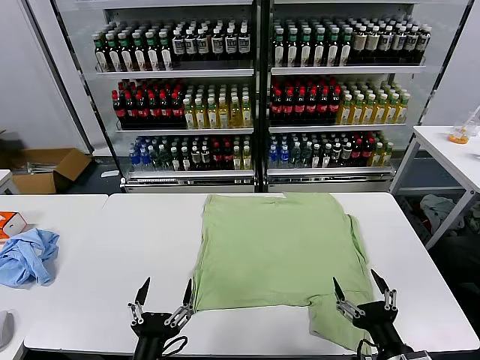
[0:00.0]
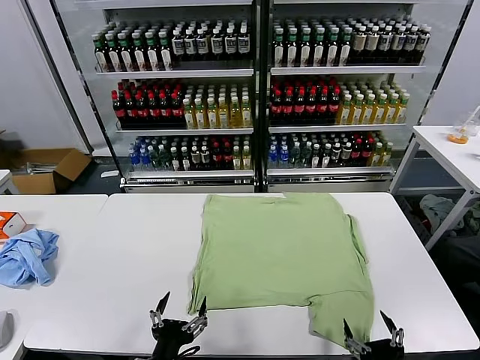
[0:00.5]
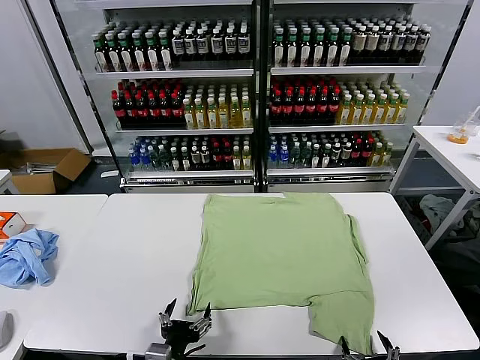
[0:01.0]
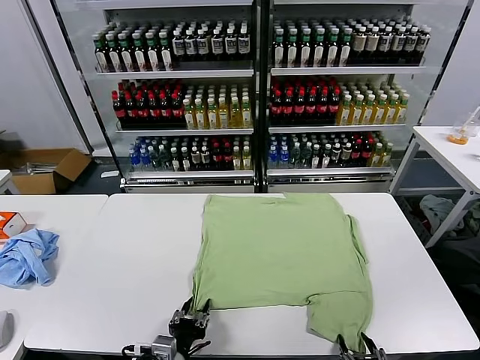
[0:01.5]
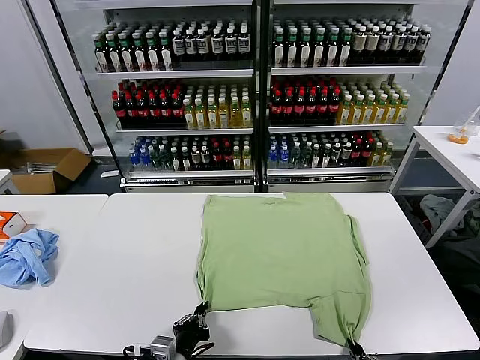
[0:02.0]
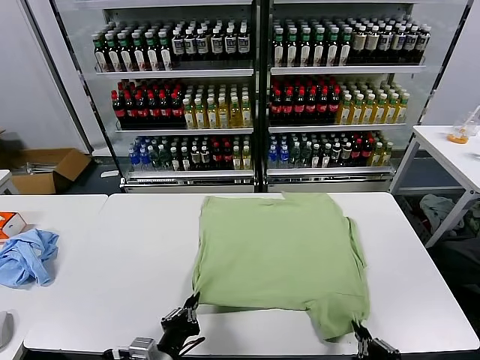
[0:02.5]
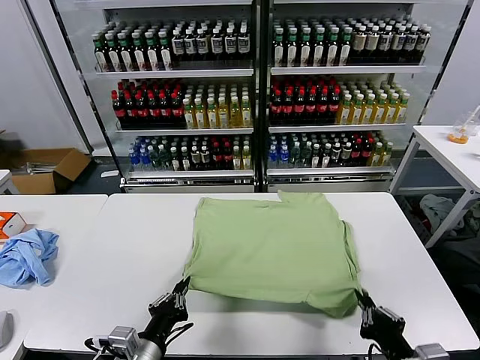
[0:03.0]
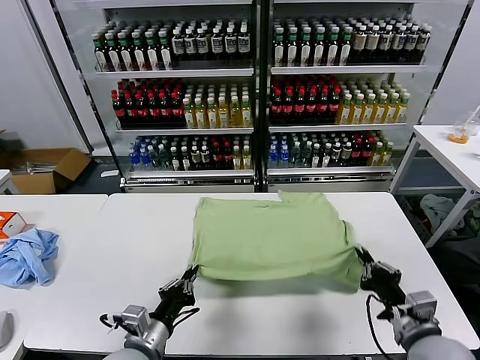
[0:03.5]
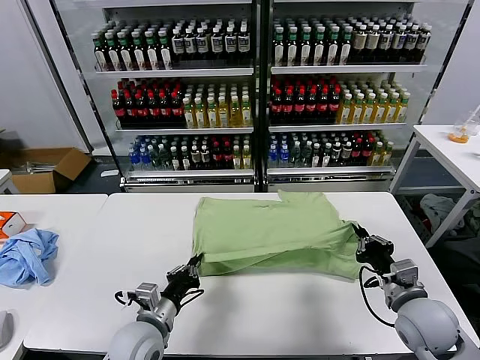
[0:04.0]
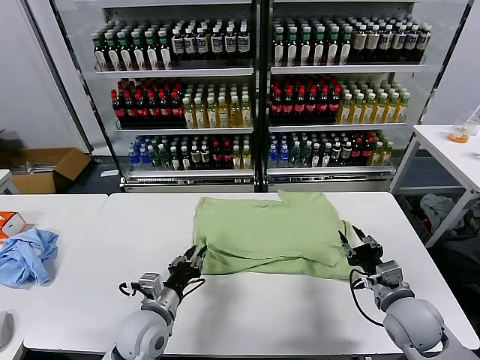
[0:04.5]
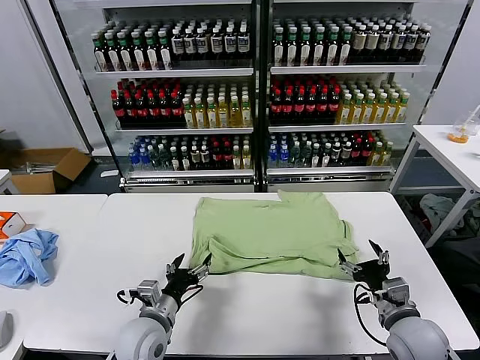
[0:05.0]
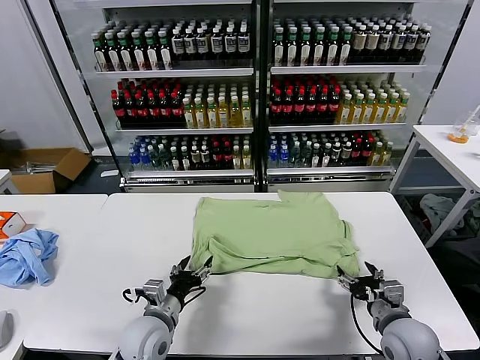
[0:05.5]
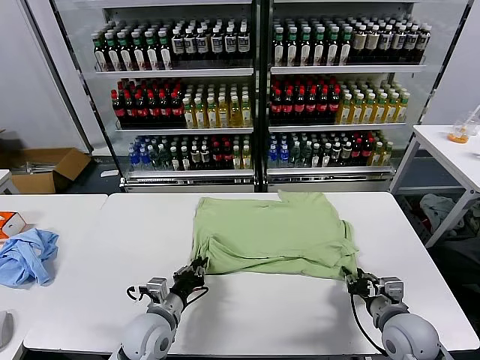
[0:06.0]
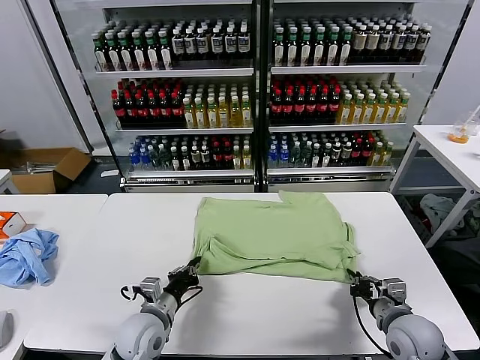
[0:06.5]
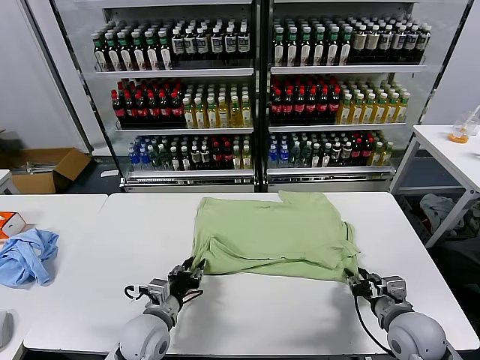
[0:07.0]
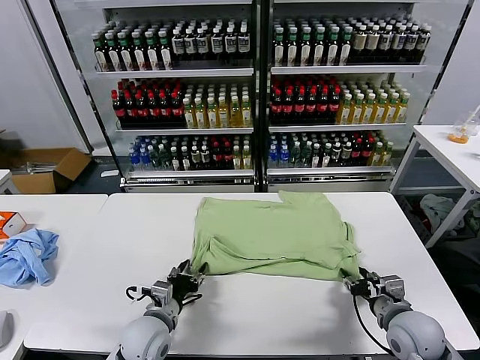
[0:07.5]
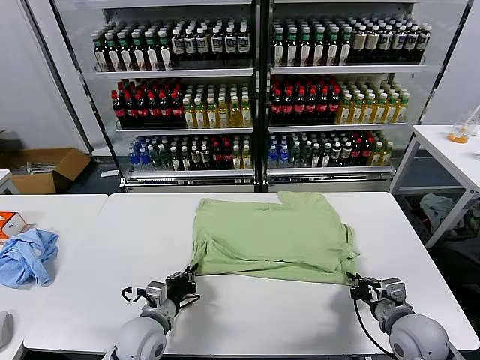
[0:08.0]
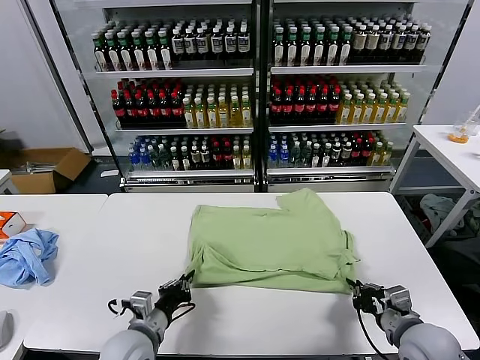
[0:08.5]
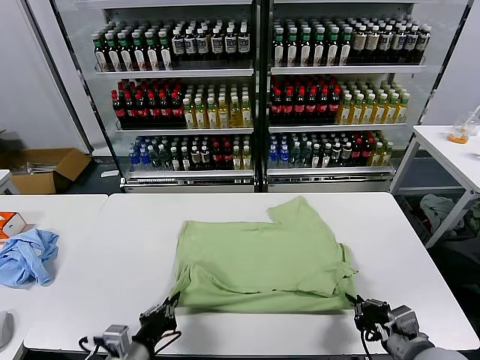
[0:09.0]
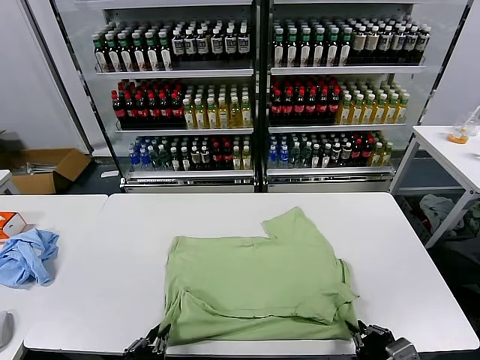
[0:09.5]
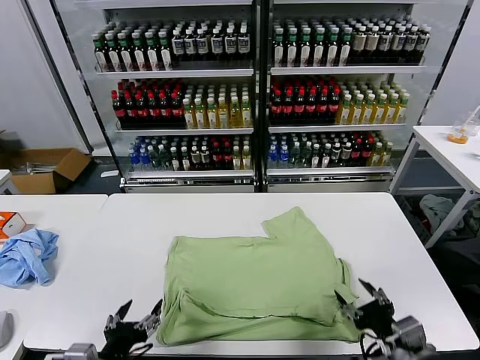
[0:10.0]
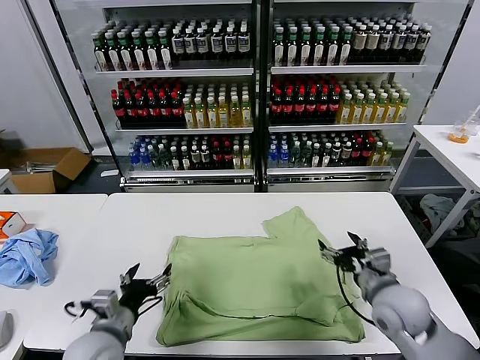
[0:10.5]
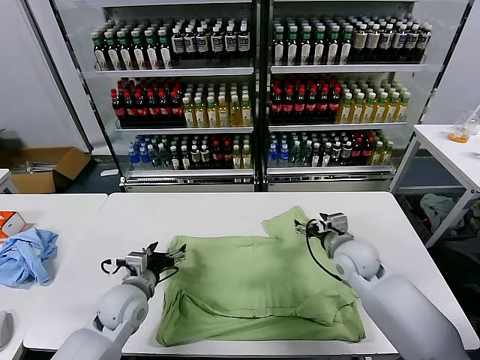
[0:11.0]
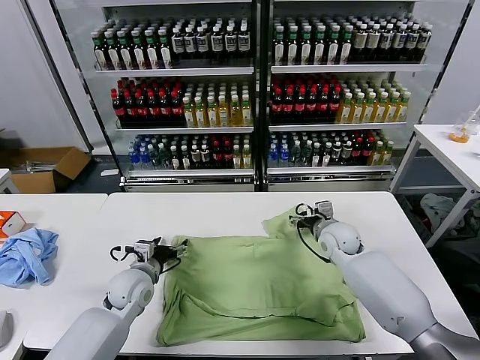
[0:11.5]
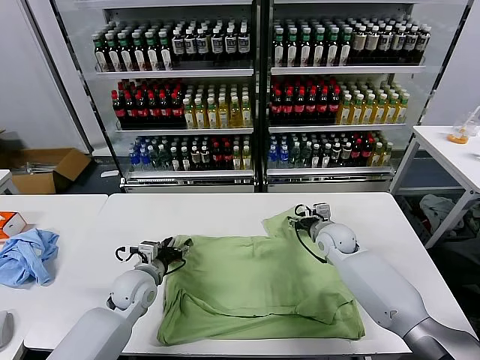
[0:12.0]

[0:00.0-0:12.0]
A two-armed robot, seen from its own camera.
Task of the whole recording: fold and organize the clothes.
Step, 0:00.0 to 0:02.0: use both grippers simultaneously to clamp the lower edge of the clothing fabric.
Step, 0:02.5 to 0:04.5: use both grippers to drag the lower edge of the fabric forward and fold it over the upper edge.
Step, 0:05.0 to 0:09.5: Drag the clothes downward with both gripper.
0:02.0 to 0:04.0: The left gripper moves forward, roughly 10 cm; the right gripper is displaced forward by roughly 20 cm.
0:04.0 to 0:06.0: The right gripper opens and closes again. Meanwhile the left gripper opens, then closes again.
0:06.0 to 0:08.0: The left gripper opens and closes again.
0:08.0 to 0:10.0: The right gripper shifts some 10 cm backward and upward, and opens; the left gripper shifts approximately 20 cm backward and upward, and opens.
0:10.0 to 0:12.0: Both grippers travel together forward, roughly 30 cm.

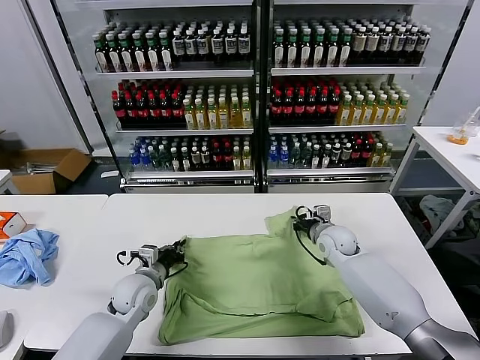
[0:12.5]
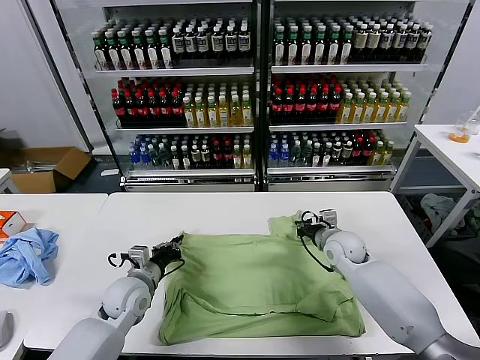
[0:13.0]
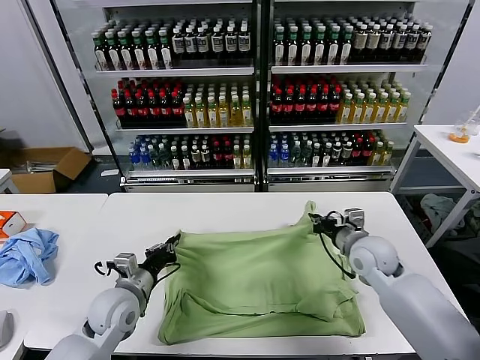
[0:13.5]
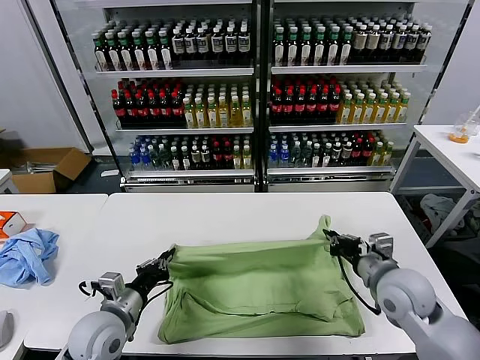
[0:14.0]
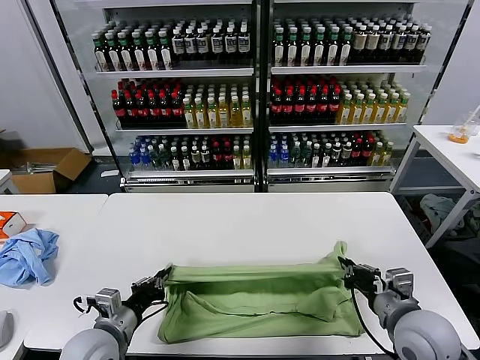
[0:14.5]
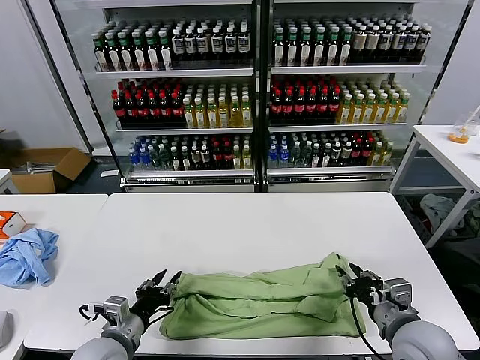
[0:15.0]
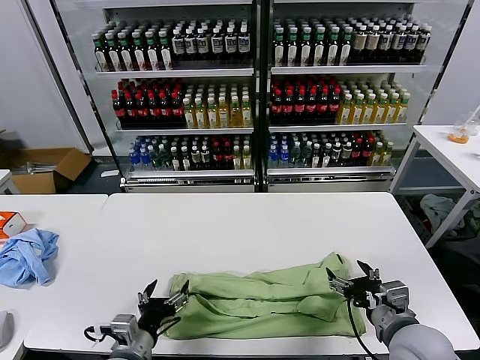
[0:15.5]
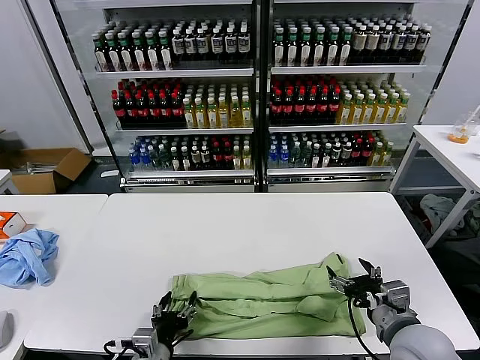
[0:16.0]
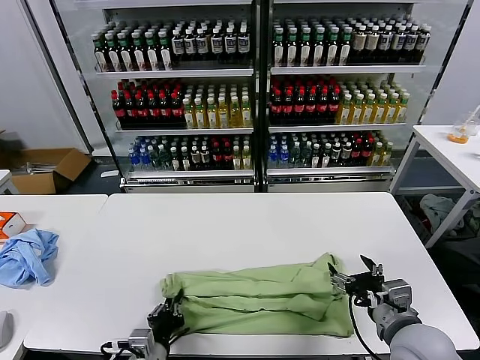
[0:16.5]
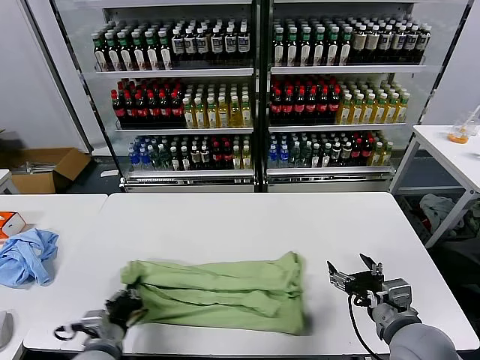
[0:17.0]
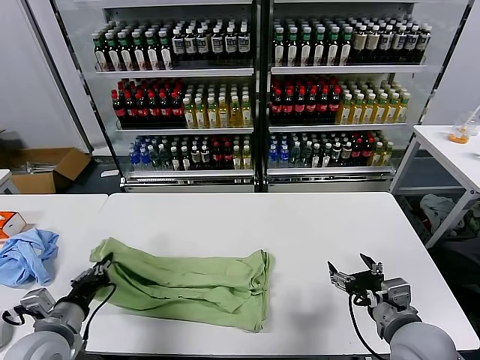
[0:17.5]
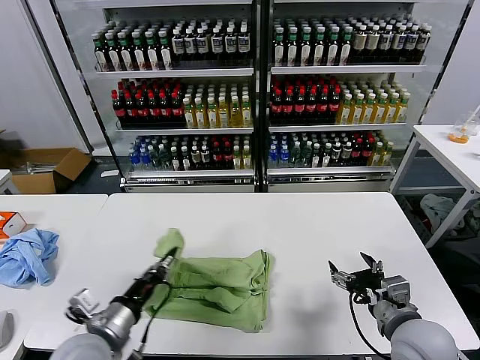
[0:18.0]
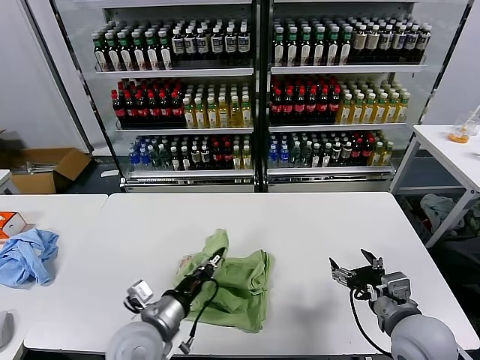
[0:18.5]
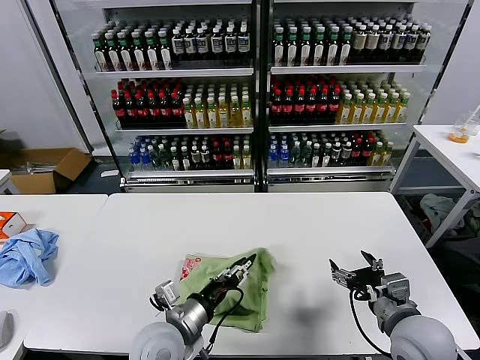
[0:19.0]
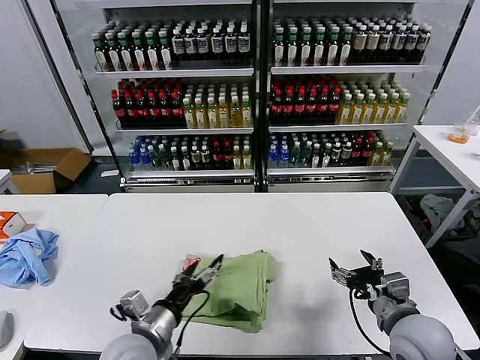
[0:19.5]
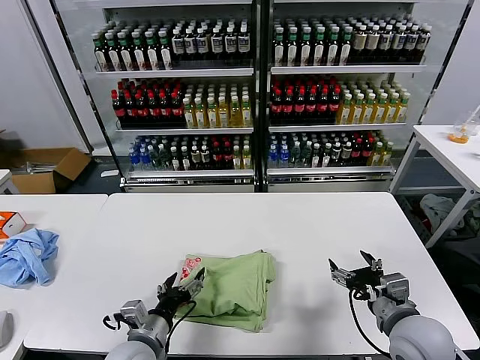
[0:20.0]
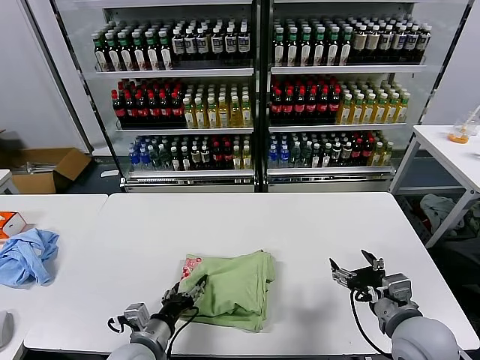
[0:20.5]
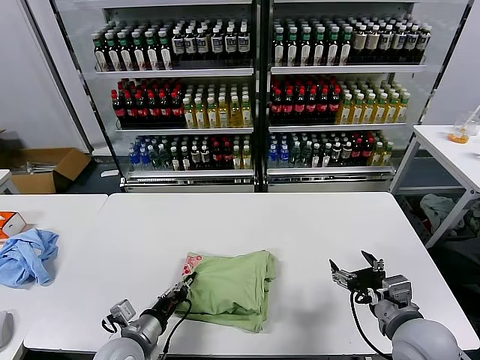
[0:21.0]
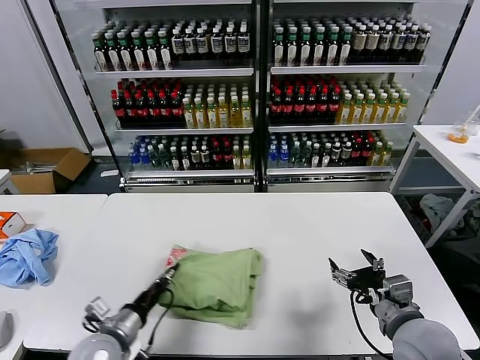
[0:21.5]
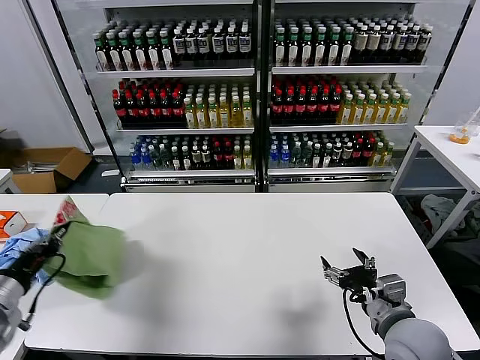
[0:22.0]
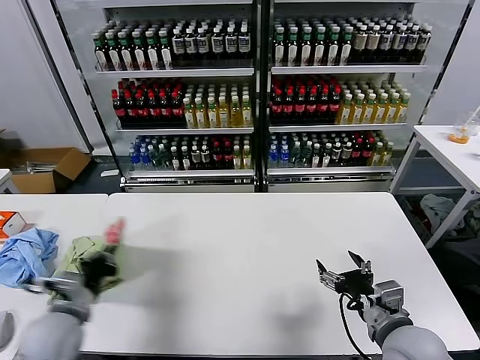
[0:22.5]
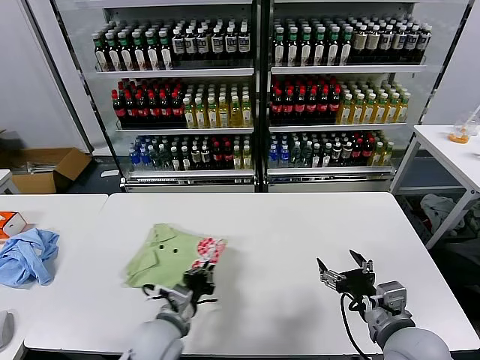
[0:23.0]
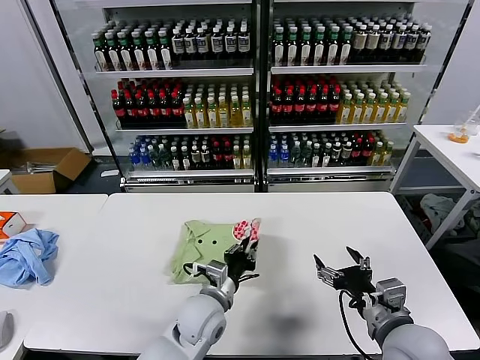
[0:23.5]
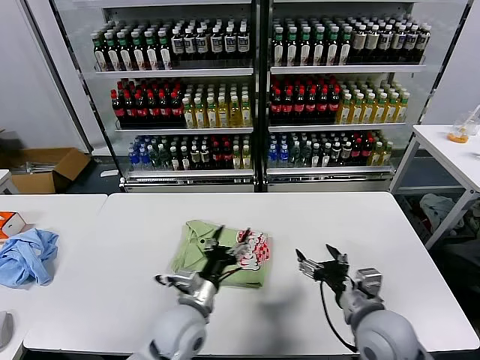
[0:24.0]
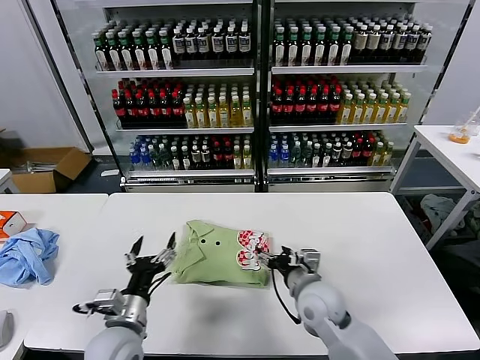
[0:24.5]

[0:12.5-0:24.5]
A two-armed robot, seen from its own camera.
Task of the whole recording: fold and organize the clothes.
Step, 0:13.0 to 0:15.0: use both grippers to drag the upper edge of the fabric backward and fold it over the lower edge.
Step, 0:15.5 to 0:16.0: use the left gripper to clamp the left edge of the fabric.
Step, 0:17.0 to 0:19.0: use the left gripper to drag the left edge of the fabric to the left and folds it over the right edge.
Step, 0:19.5 to 0:23.5: Flip the folded clothes over with left gripper.
0:12.5 to 0:14.5: The left gripper goes approximately 15 cm backward, while the right gripper is displaced backward by some 25 cm.
0:14.5 to 0:16.5: The left gripper heads to the right, backward and downward, covering approximately 10 cm, and opens and closes again. Meanwhile the right gripper opens its fingers.
0:16.5 to 0:18.5: The left gripper moves upward and forward, roughly 10 cm, and moves some 15 cm to the left and comes back.
0:18.5 to 0:20.5: The left gripper travels downward by some 5 cm, and opens its fingers.
0:20.5 to 0:22.5: The left gripper moves to the left and upward, some 20 cm, and closes up.
0:22.5 to 0:24.5: The left gripper moves to the right, roughly 15 cm, and opens up. Meanwhile the right gripper shifts roughly 15 cm forward, to the left and downward.

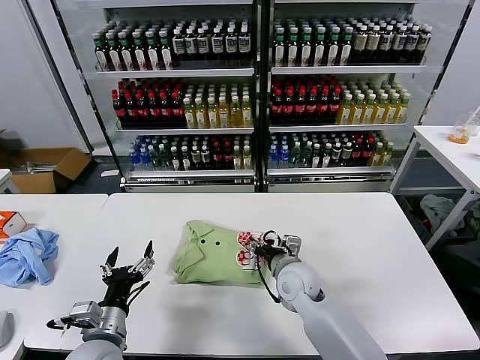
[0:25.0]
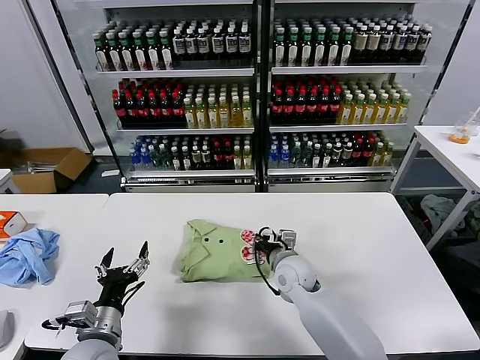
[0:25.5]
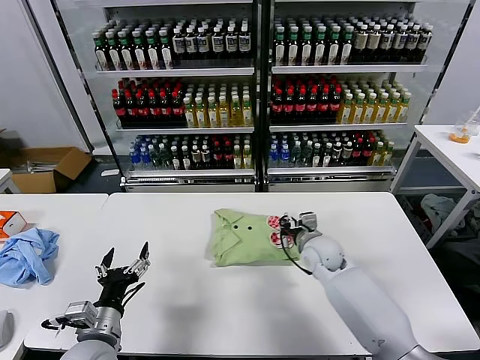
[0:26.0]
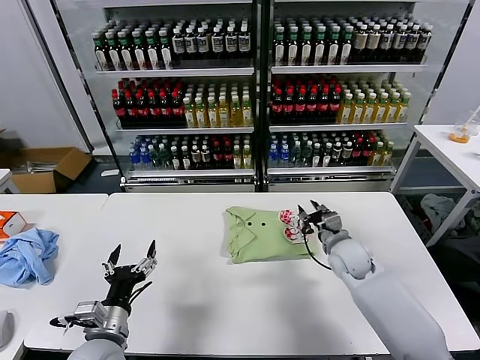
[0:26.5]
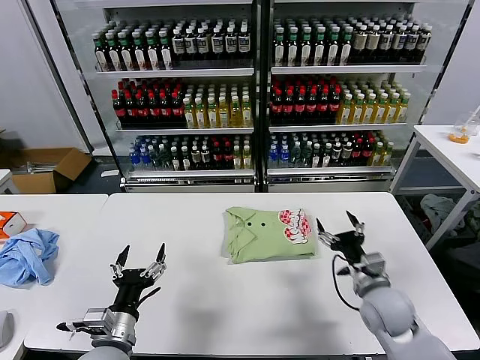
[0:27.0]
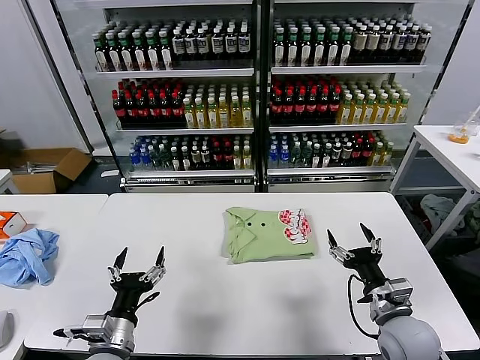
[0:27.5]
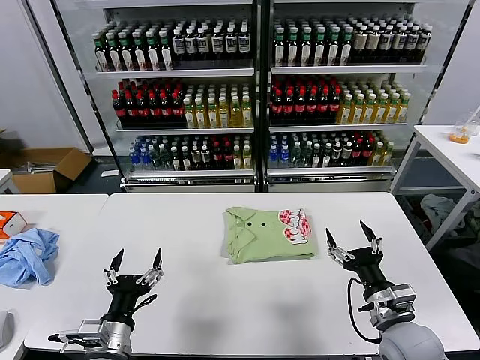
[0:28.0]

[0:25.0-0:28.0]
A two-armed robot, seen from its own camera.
Task of the whole recording: fold and organize the clothes.
0:25.0 to 0:26.5: The right gripper goes approximately 15 cm to the right and forward, and closes, then reopens.
0:26.5 to 0:28.0: The right gripper heads backward, covering some 20 cm, and opens.
